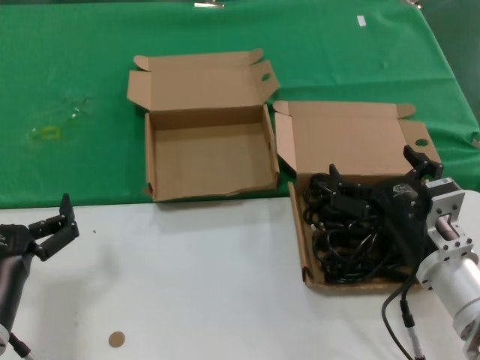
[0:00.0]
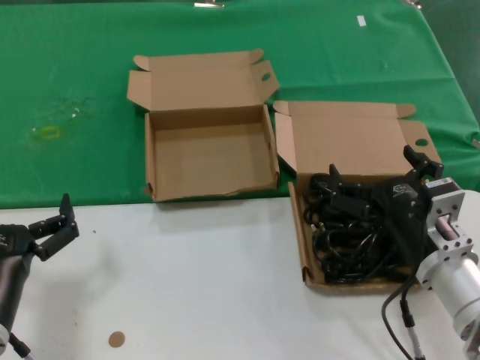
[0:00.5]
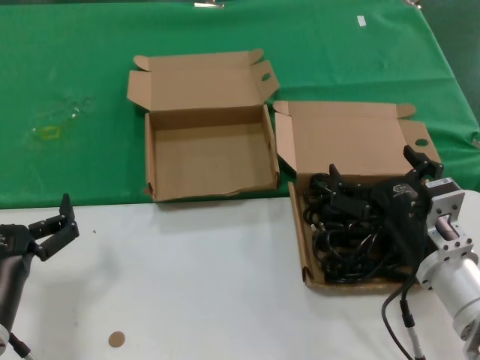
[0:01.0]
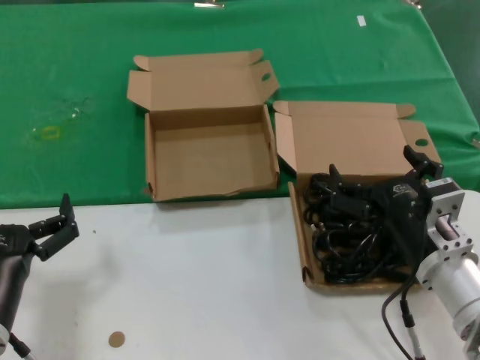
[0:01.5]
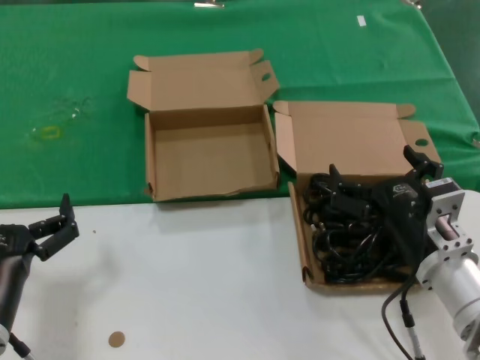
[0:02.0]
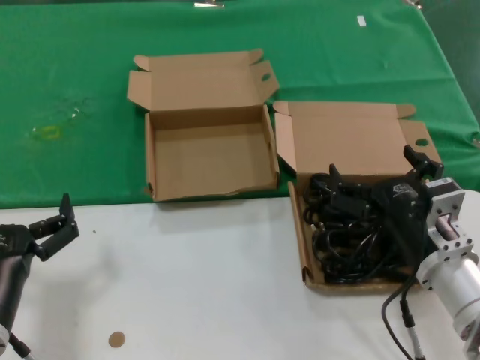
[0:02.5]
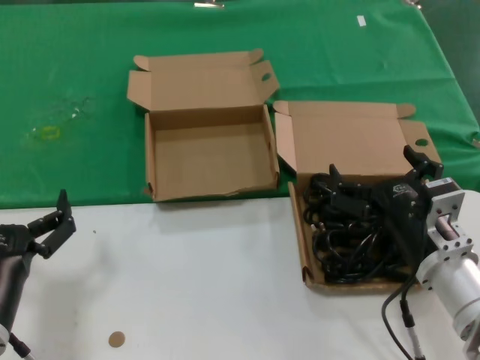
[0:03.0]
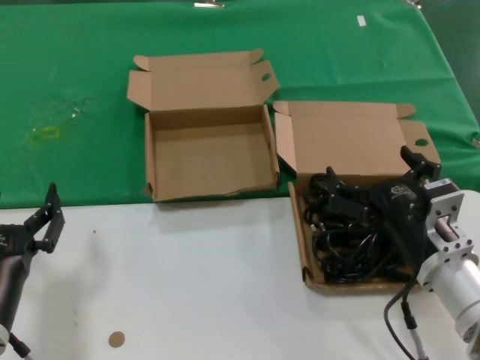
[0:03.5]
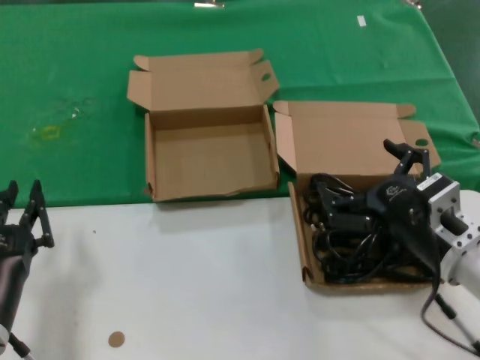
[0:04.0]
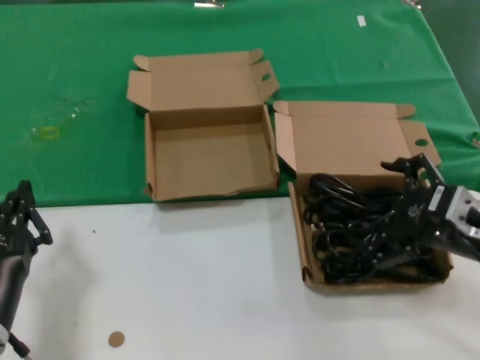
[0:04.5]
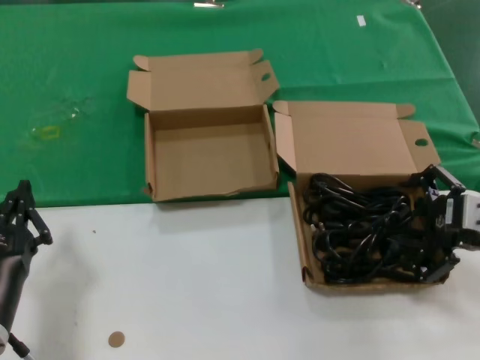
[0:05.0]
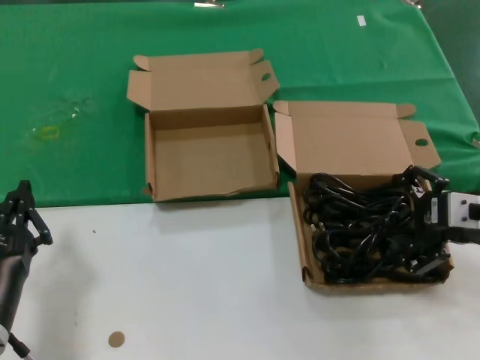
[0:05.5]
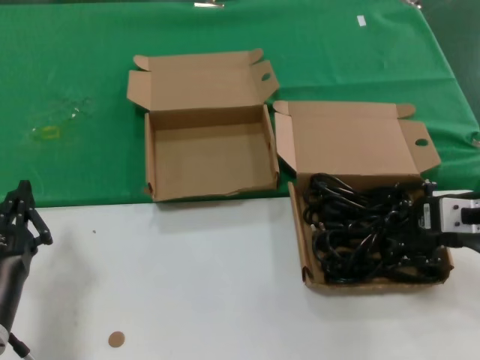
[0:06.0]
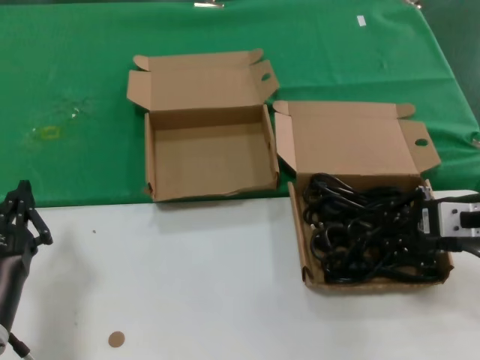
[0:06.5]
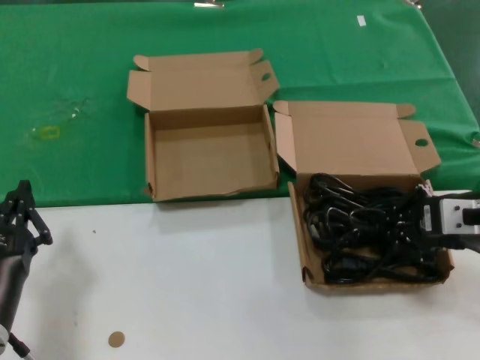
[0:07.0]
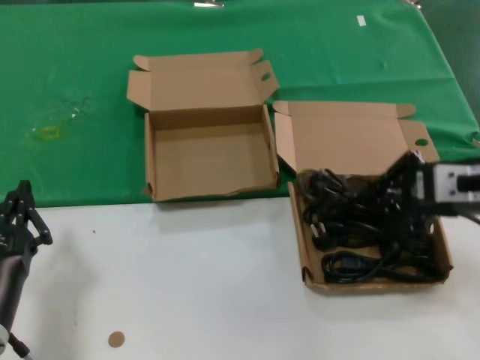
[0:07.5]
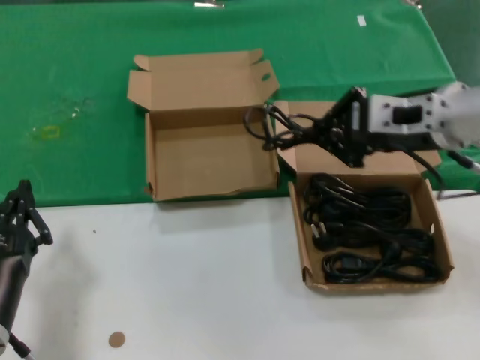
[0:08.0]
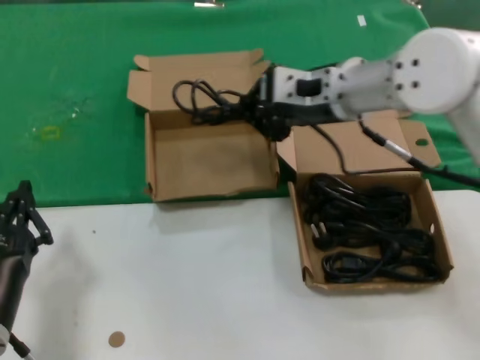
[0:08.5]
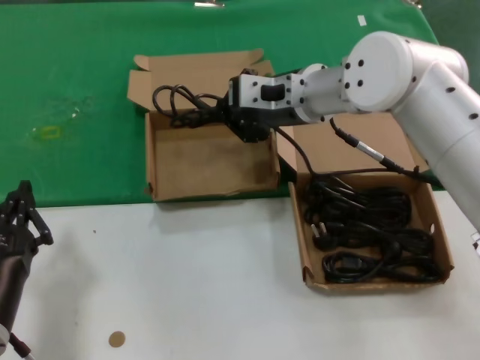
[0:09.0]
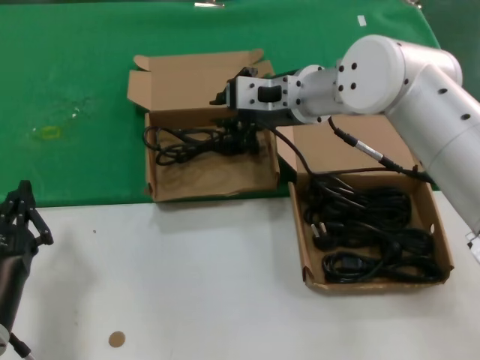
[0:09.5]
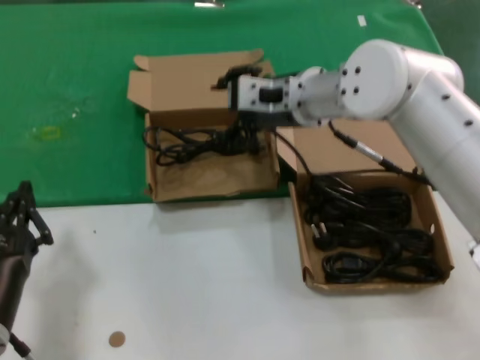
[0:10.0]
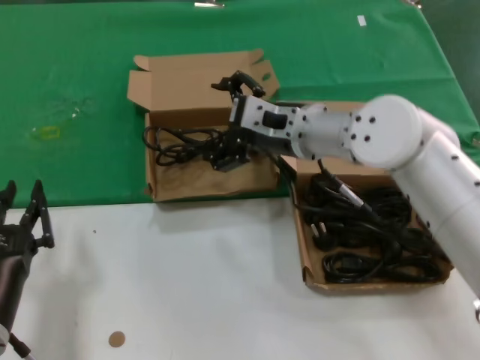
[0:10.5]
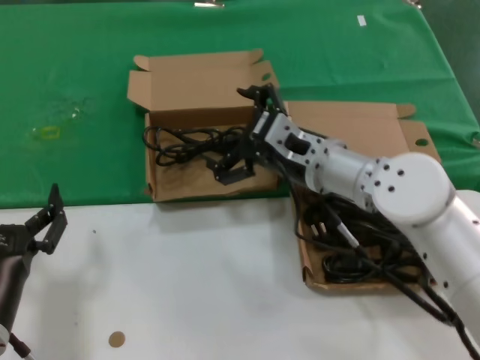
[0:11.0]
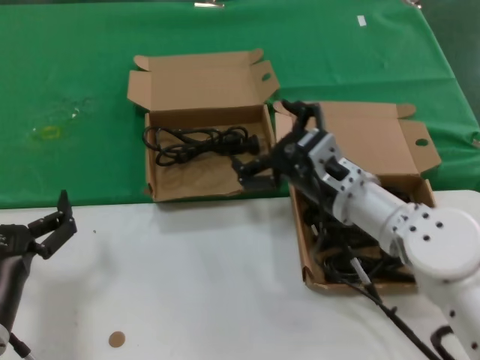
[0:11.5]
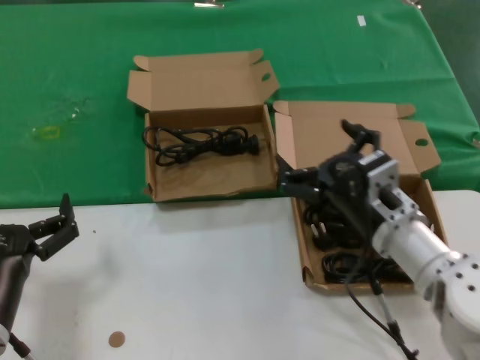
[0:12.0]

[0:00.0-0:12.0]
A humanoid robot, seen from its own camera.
Task of the whole recording: take the parts from the box containing them and put them into an empty box.
Step, 0.0 to 6.5 s: Grasp the data cable.
Step, 7.0 to 9.5 s: Place the data cable in the another box.
0.0 to 2.0 s: Both hands stay put.
2.0 to 4.0 s: The hands move only a little.
4.0 to 6.0 s: The right hand travels to the right, upward and forward by some 10 cm.
6.0 to 8.0 s: The right hand travels upward, to the left and forward by approximately 15 cm.
8.0 to 10.0 s: The right hand goes about 15 cm to the left and forward.
10.0 to 12.0 s: The right hand moves downward, backward and to the right, approximately 25 cm.

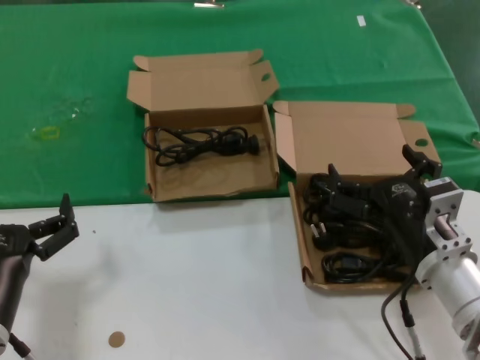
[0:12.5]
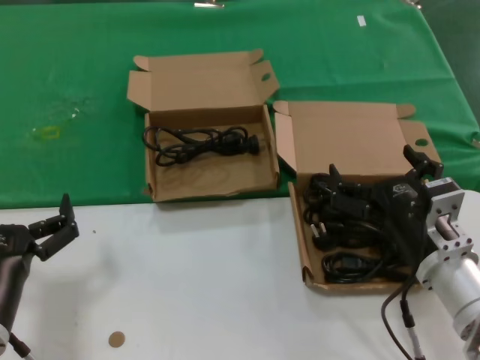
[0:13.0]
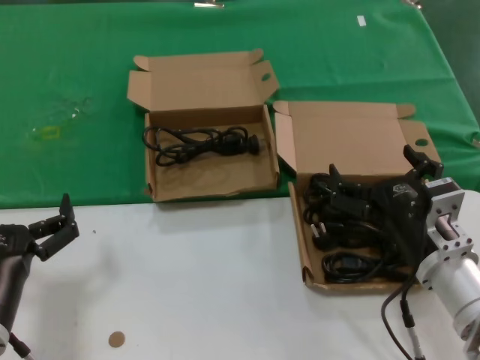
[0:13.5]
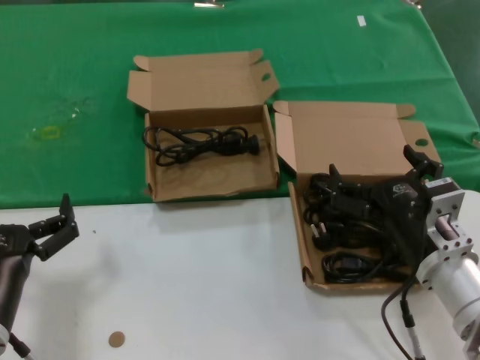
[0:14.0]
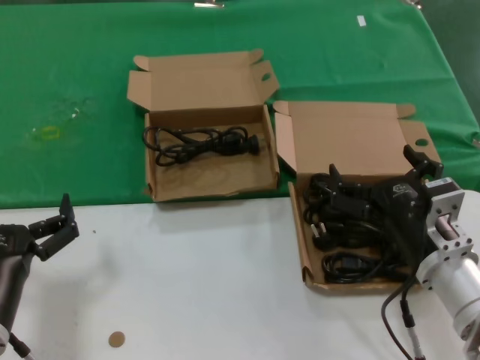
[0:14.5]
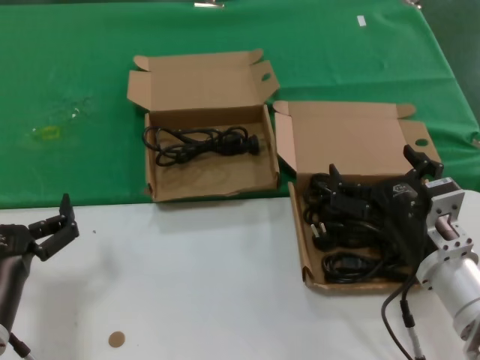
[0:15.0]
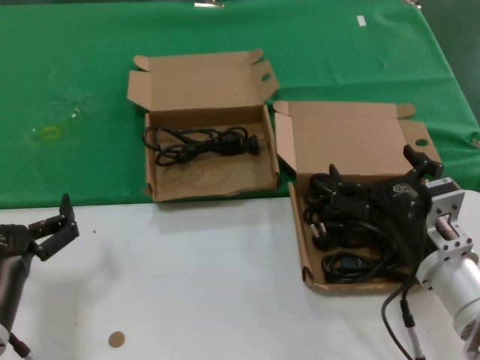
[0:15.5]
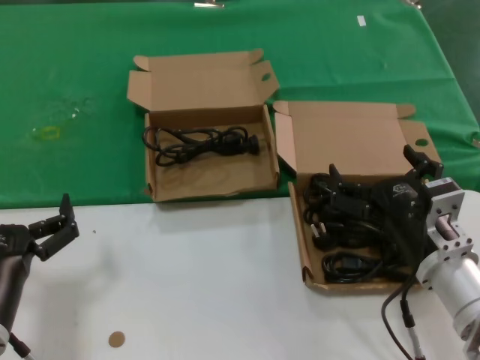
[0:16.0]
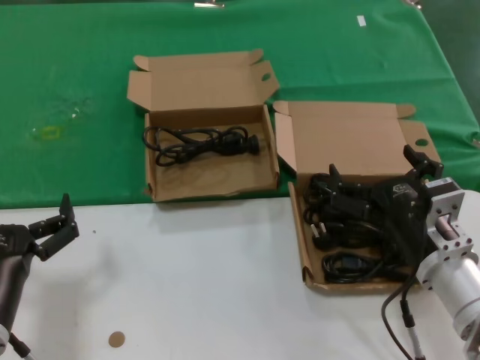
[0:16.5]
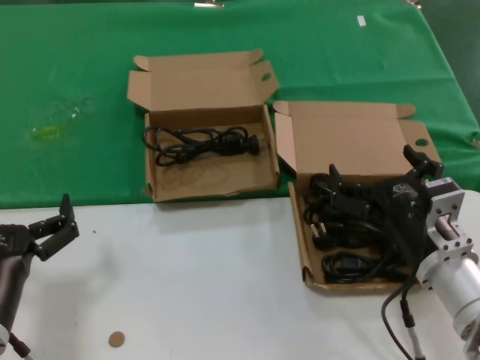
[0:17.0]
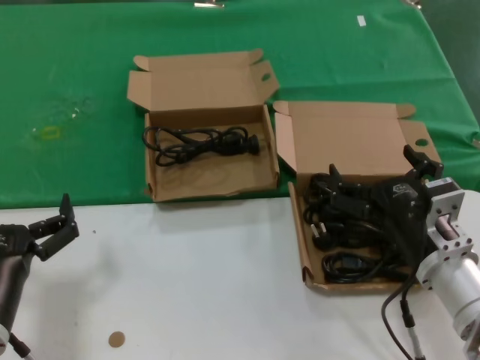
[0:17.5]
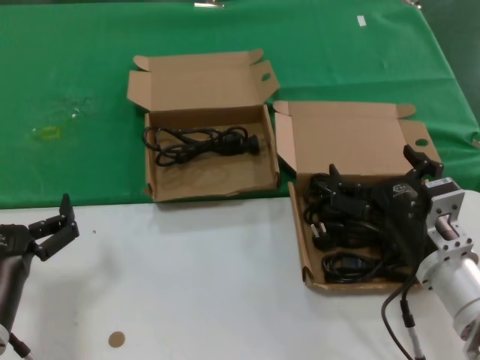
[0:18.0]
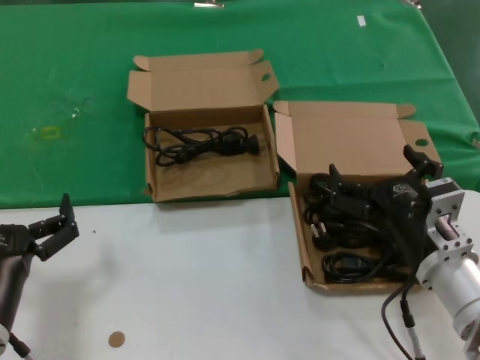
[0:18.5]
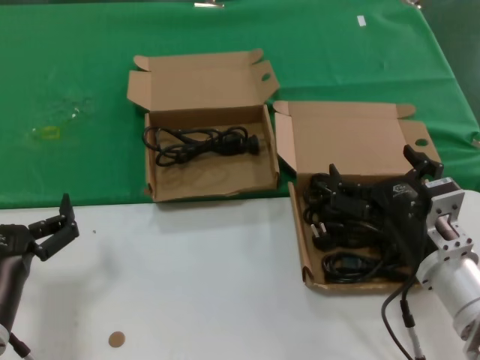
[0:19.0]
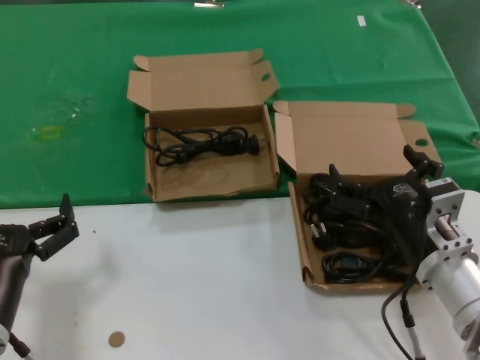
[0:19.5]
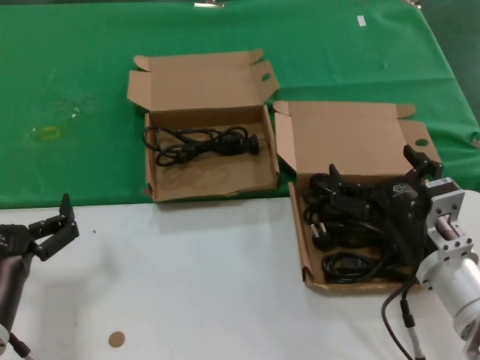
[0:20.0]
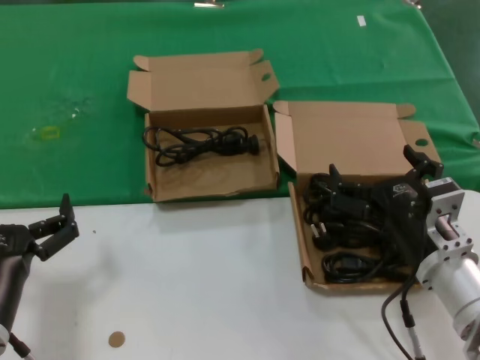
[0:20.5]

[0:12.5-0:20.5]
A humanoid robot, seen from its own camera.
Task of the whole recording: take the parts from the box containing them and put them into an empty box.
12.5 to 20.5 s: Both hands stay put.

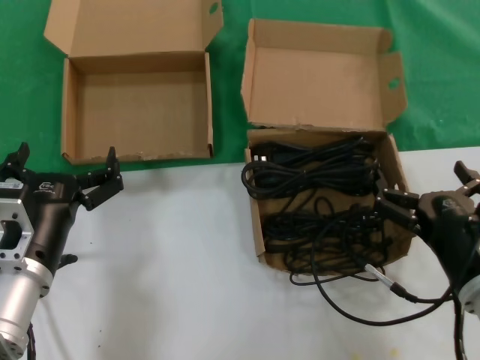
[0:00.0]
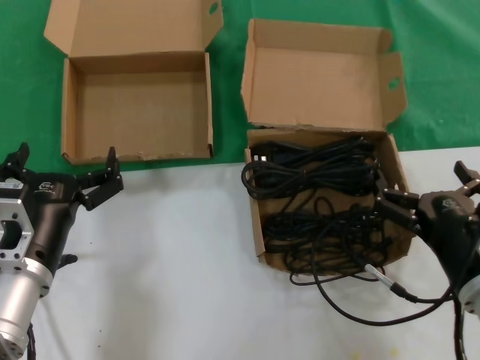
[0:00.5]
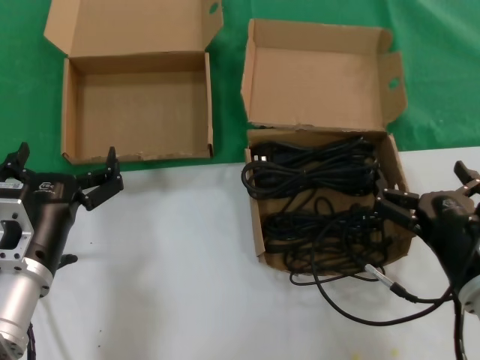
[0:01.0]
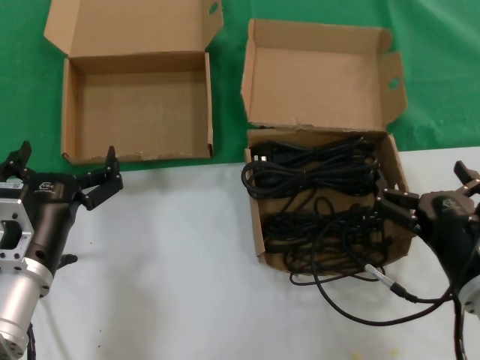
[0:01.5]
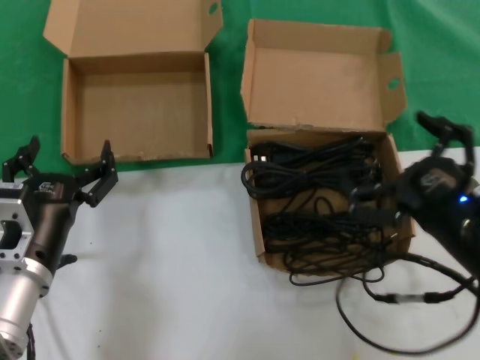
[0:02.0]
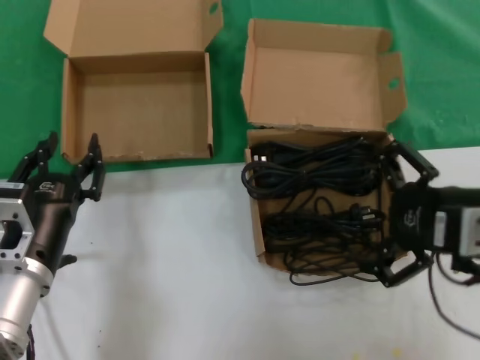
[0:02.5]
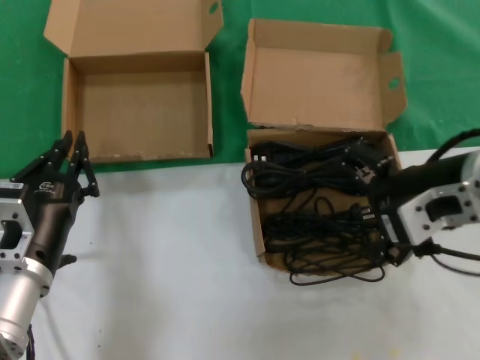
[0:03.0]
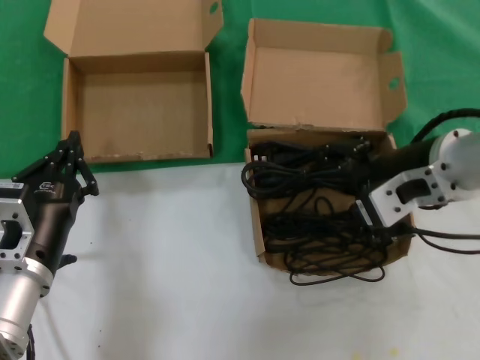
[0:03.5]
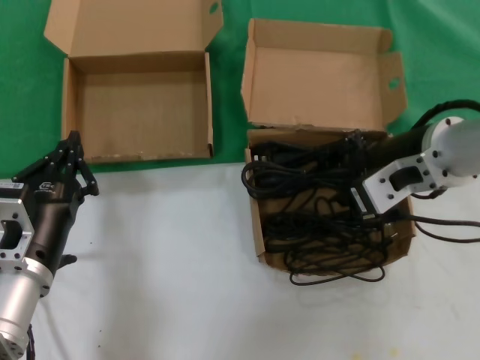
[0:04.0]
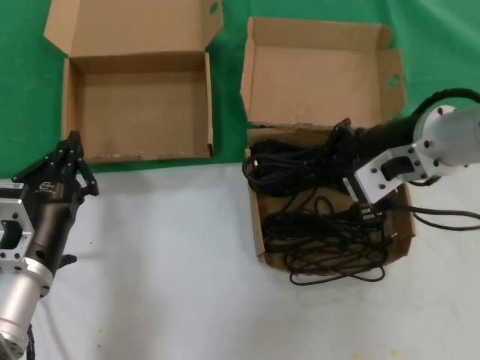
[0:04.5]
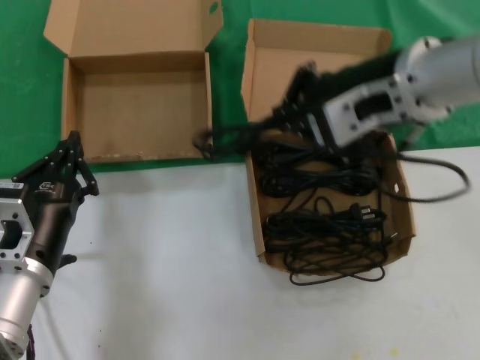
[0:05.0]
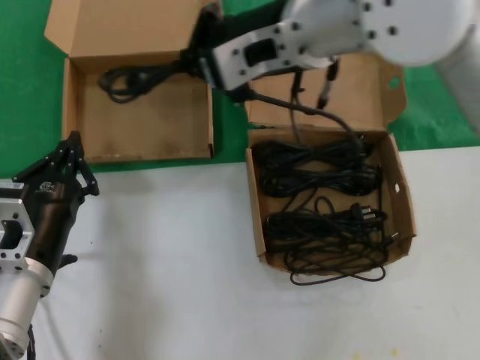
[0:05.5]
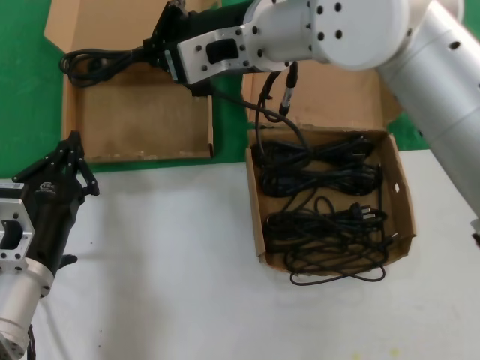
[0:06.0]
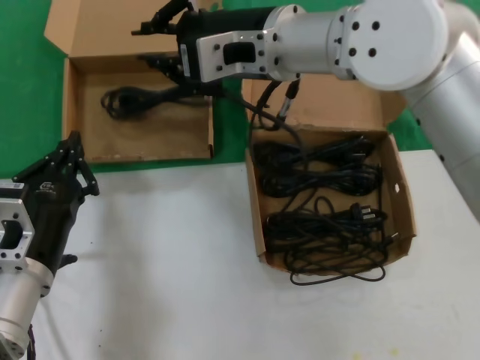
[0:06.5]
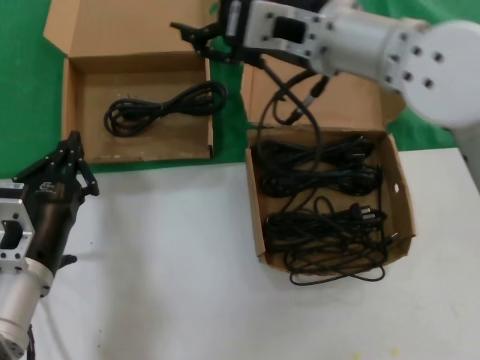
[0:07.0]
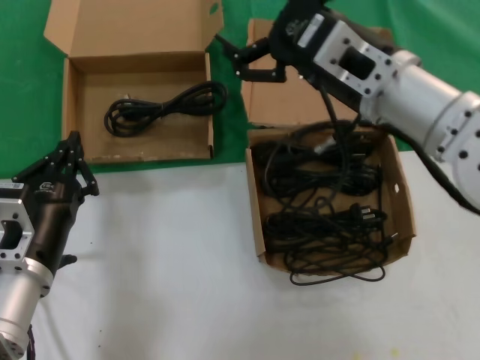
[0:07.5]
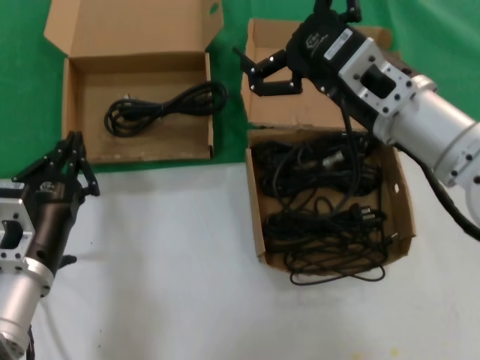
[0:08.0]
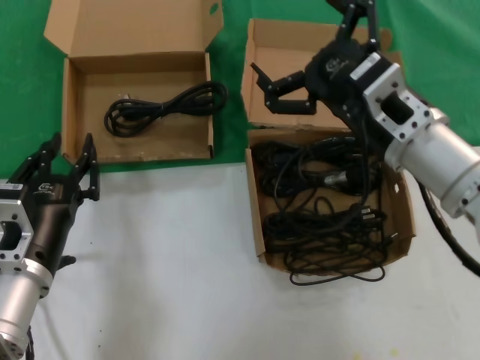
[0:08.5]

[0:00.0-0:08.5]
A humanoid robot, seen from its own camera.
Task of the whole recording: take the parts from the box containing them and put them into an empty box.
Step, 0.0 to 4.0 s: Grasp the data cable.
Step, 4.5 to 6.5 s: Place the data cable in the another box.
0.0 to 2.0 s: The right hand heads upward, covering approximately 10 cm.
2.0 to 4.0 s: The right hand shifts about 20 cm forward and upward.
4.0 to 6.5 s: The right hand heads to the left, upward and forward, covering some 15 cm.
6.5 to 8.5 s: The right hand heads to the right, downward and backward, covering about 20 cm.
